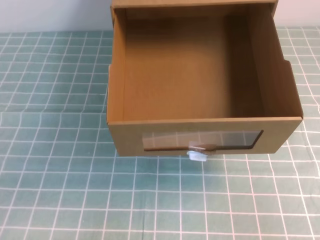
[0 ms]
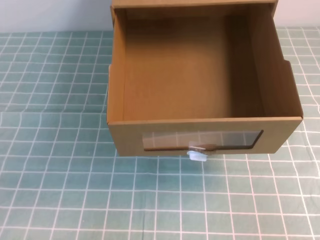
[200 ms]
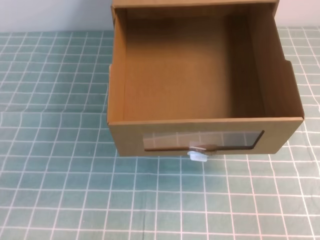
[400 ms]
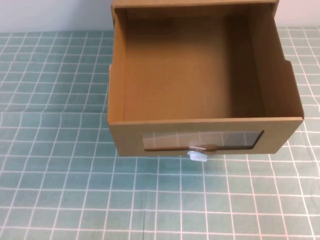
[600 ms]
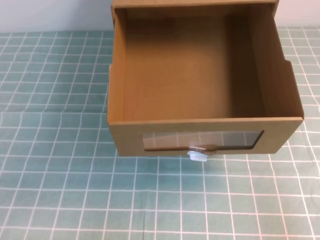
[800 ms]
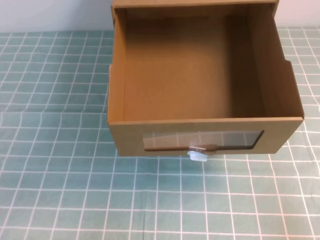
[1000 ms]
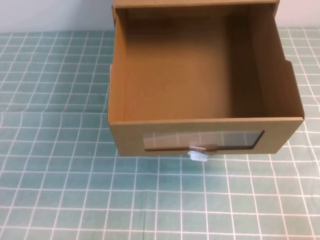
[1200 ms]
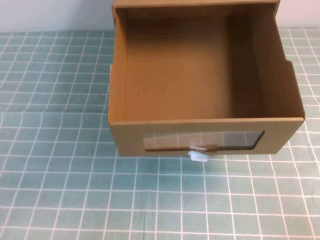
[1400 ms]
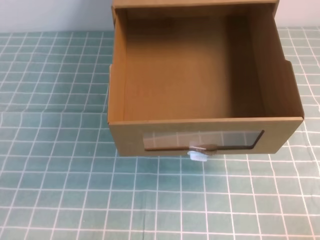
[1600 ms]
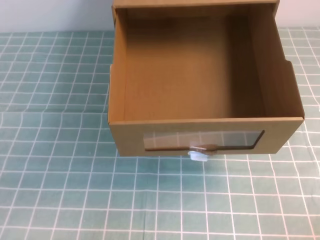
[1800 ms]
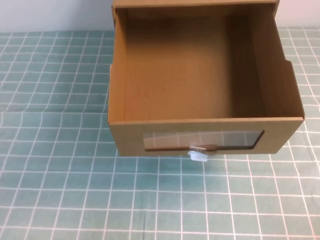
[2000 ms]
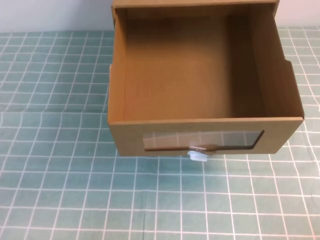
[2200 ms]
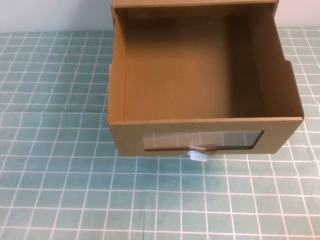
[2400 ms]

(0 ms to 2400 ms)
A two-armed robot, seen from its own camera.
Task of the whole recording: open the shoebox on the cyan tablecloth.
0 ms - 1200 ms: The right gripper moves downward, some 10 cm.

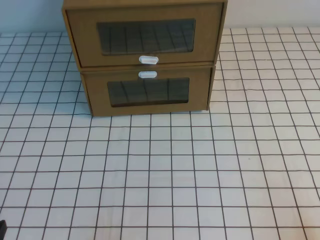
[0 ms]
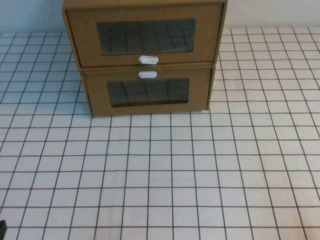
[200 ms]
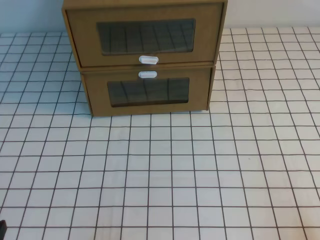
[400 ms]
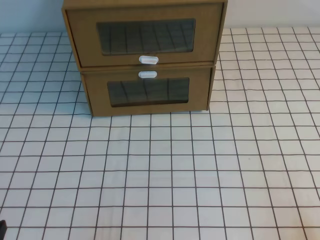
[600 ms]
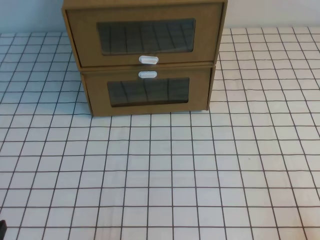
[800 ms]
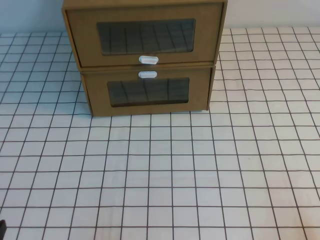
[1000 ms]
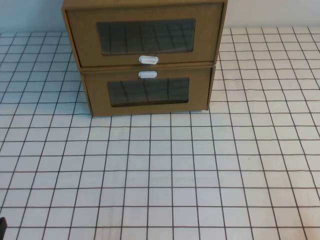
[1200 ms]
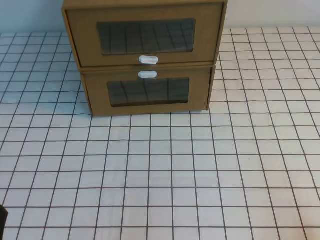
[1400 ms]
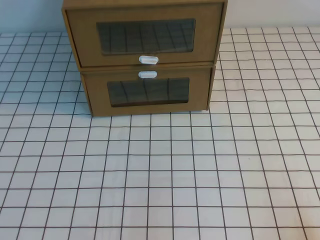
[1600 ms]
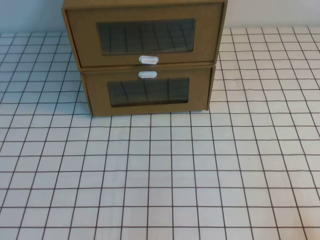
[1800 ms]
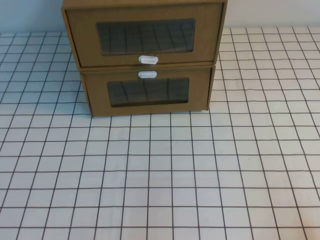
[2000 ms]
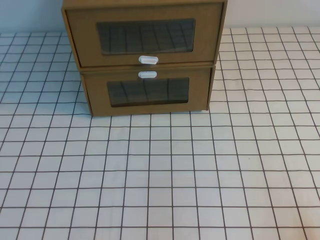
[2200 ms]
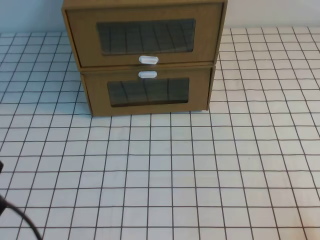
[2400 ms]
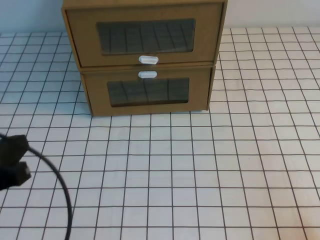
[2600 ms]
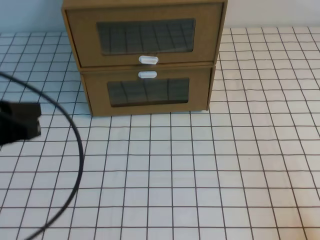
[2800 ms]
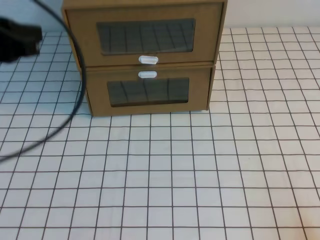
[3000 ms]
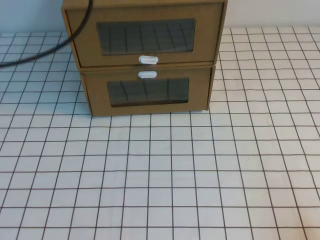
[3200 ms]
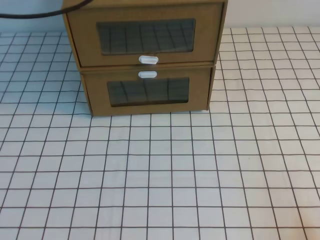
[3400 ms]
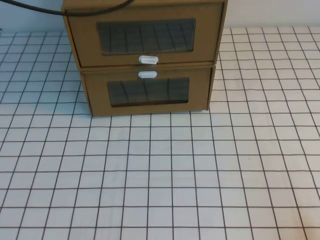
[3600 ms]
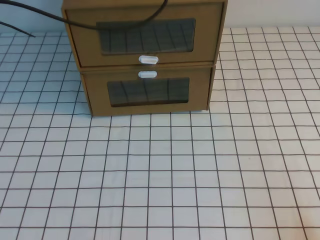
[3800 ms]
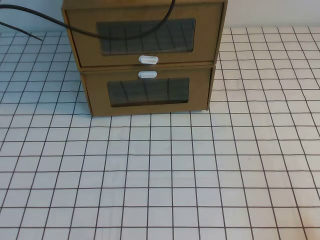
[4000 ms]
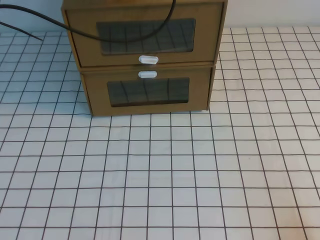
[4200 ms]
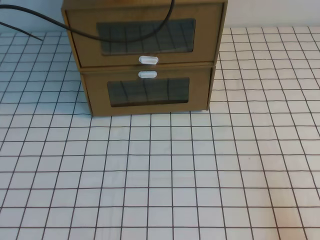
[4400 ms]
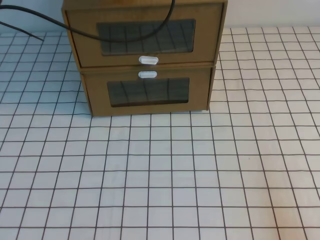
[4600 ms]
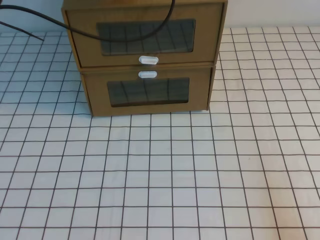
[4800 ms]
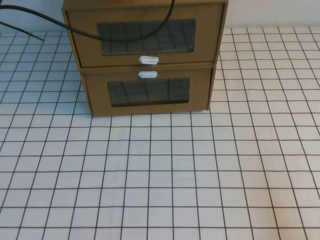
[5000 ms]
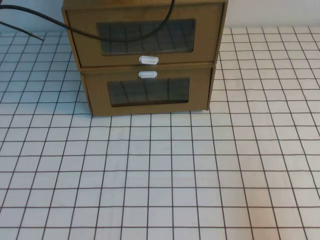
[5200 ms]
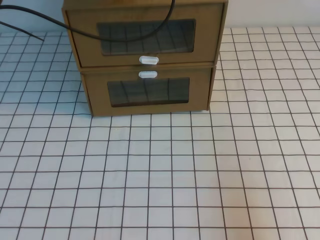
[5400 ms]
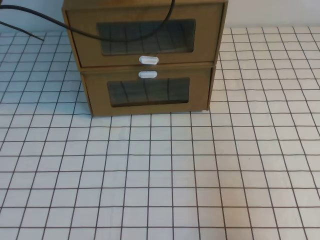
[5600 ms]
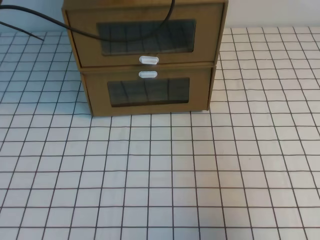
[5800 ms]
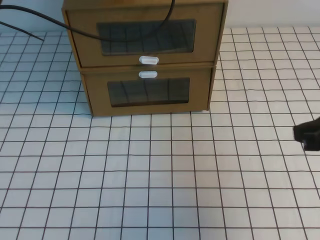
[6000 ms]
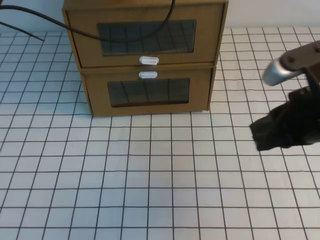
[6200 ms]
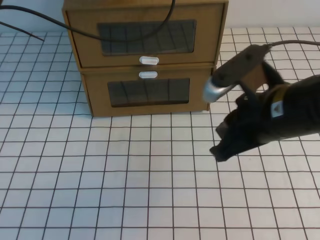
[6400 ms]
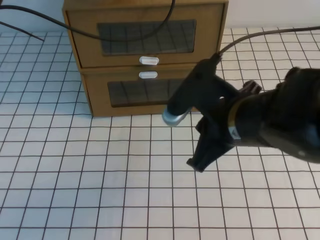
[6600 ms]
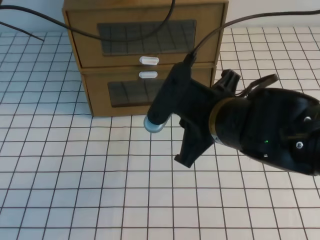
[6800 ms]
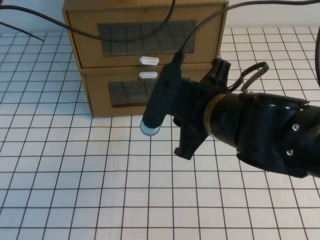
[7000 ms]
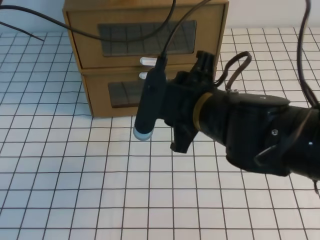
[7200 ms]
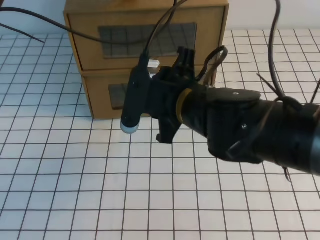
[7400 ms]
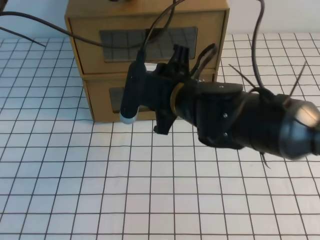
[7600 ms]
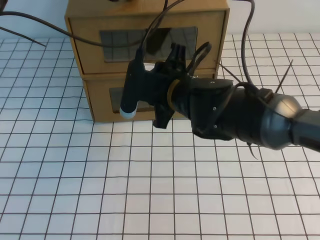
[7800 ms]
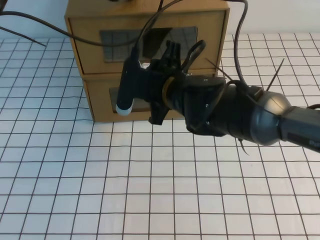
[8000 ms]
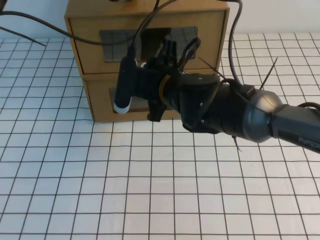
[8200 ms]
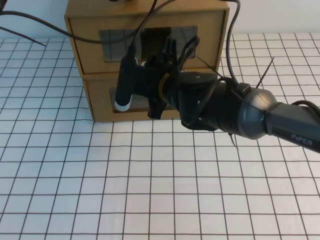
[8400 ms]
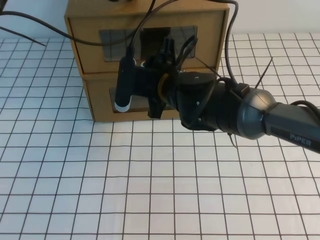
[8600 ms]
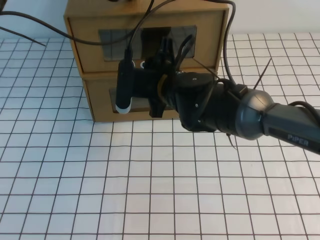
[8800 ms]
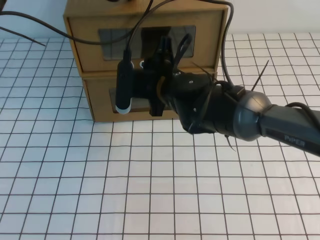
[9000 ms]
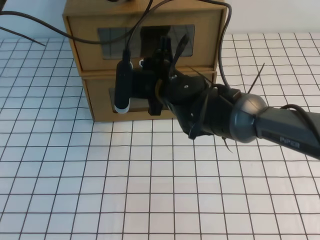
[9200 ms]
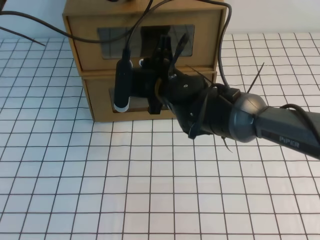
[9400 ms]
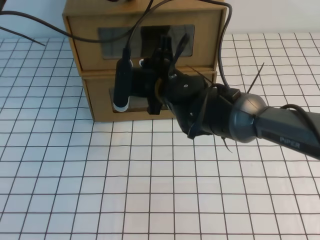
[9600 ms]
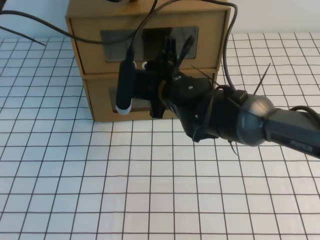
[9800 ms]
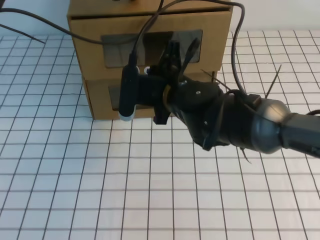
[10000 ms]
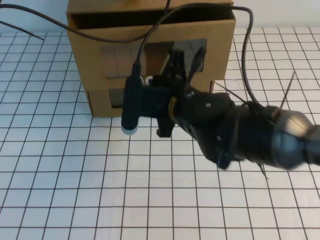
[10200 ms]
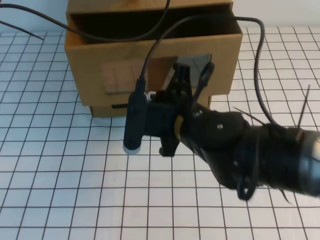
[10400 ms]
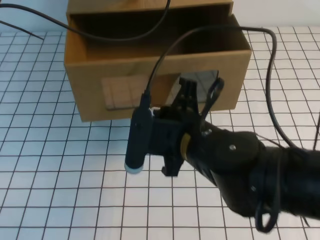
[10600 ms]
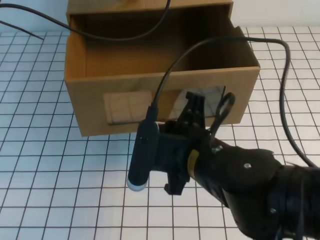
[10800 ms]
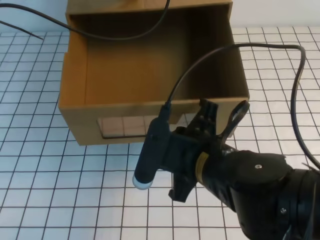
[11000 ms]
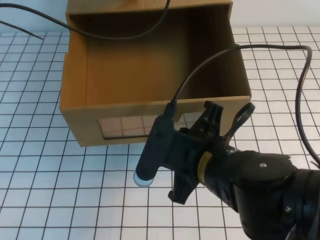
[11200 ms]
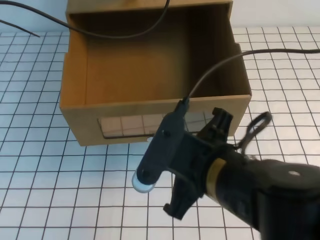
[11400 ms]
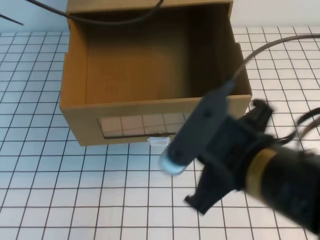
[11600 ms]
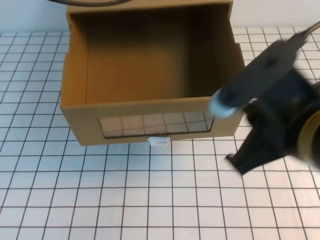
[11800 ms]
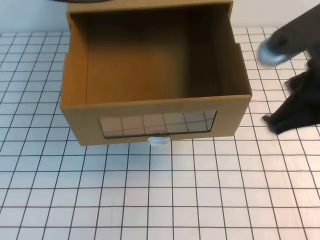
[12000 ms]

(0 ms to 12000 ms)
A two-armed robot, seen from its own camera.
Task of the whole recording: open the shoebox on the white tablecloth.
1600 ms - 3000 ms: The left gripper is displaced upward and forward by about 25 cm.
3000 ms - 4400 ms: The left gripper is displaced forward and to the right by about 25 cm.
4400 ms - 6000 ms: The right gripper goes about 20 cm forward, upward and to the left.
6000 ms - 7600 ms: The right gripper heads to the left and forward, covering about 25 cm, and opens.
7600 ms - 9000 ms: The right gripper heads forward, covering roughly 5 cm, and closes its fingers.
9000 ms - 10400 ms: The right gripper shifts some 10 cm backward, and closes up.
10400 ms - 12000 ms: The left gripper shifts some 15 cm upward and backward. Meanwhile the right gripper shifts about 20 cm to the right, upward and backward.

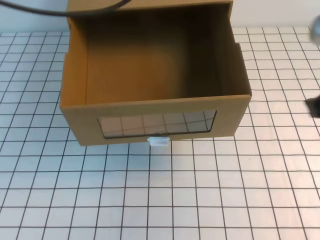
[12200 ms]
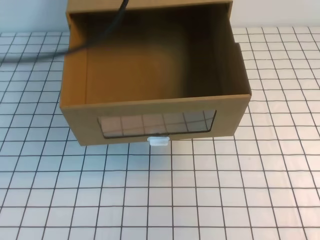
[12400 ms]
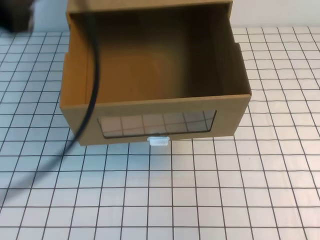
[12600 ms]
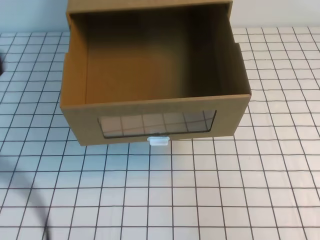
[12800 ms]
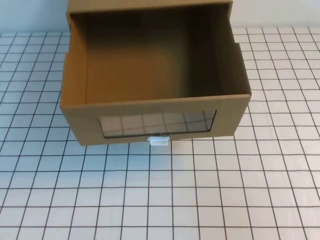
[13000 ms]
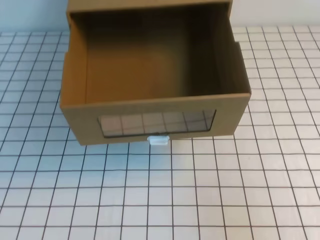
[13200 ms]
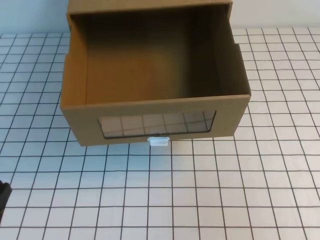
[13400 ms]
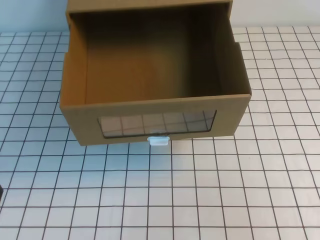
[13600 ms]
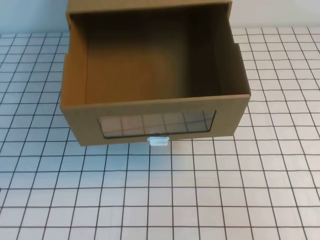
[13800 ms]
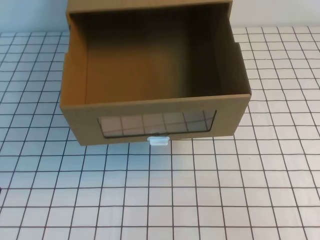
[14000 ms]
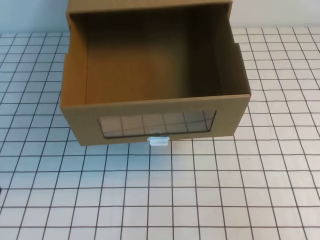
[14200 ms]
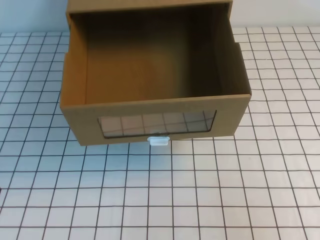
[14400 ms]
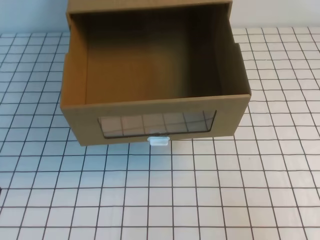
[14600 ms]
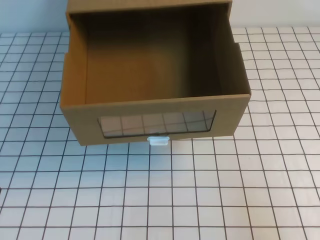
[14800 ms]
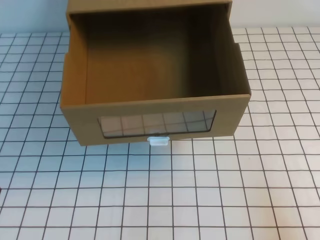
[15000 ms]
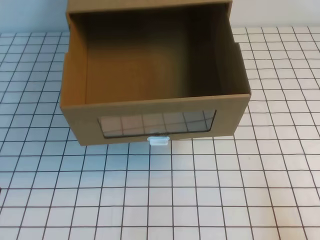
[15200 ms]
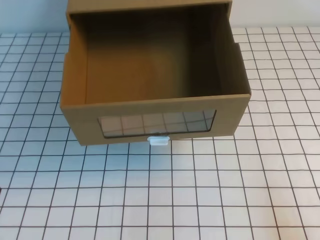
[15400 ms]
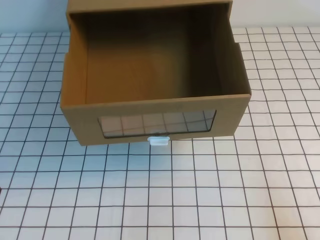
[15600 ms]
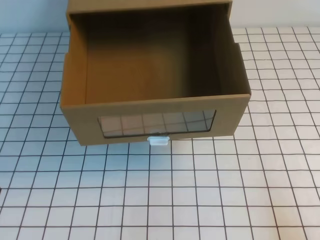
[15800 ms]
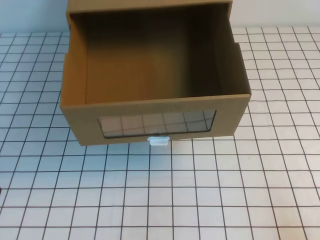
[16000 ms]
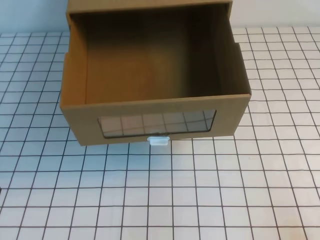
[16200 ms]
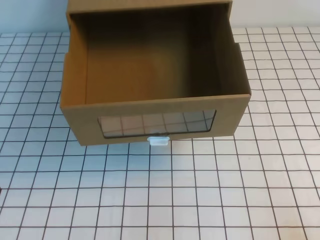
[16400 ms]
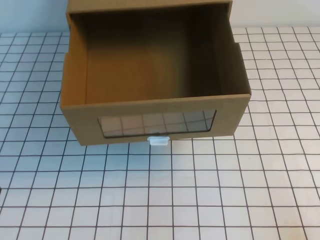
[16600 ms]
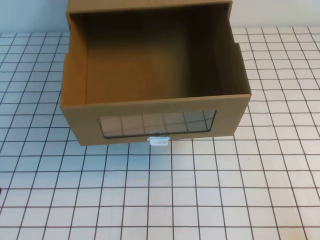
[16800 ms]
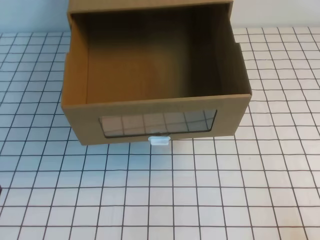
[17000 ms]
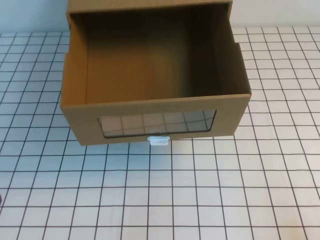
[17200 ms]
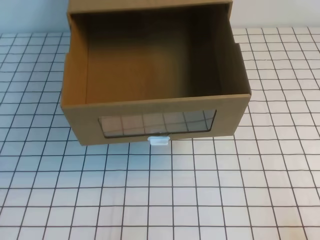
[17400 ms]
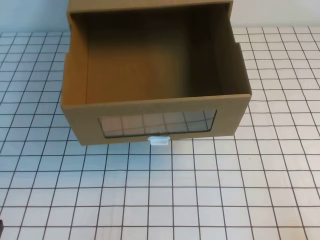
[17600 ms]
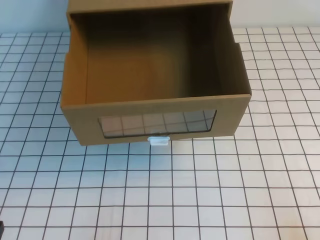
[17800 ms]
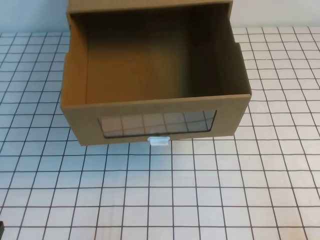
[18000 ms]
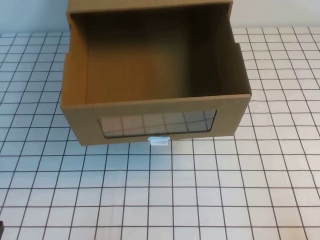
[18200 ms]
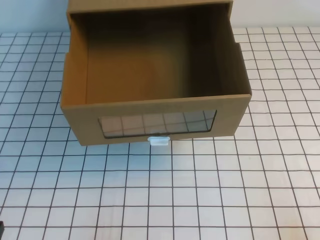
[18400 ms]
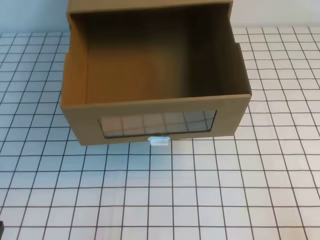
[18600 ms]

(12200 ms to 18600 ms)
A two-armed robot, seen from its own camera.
Task of the whole recording: open the shoebox on the white tablecloth.
Step, 12200 ms - 18600 ms: Open the shoe box.
12200 ms - 13800 ms: The left gripper moves downward and backward, approximately 40 cm; the right gripper is displaced backward, downward and to the right by about 15 cm.

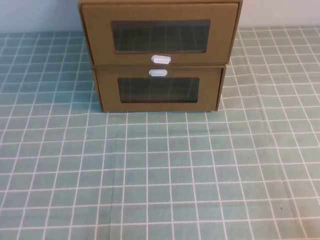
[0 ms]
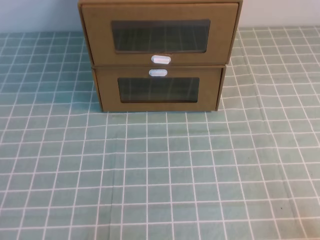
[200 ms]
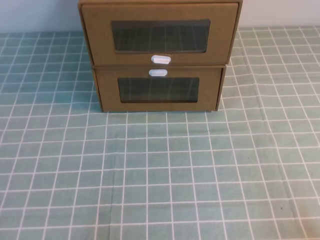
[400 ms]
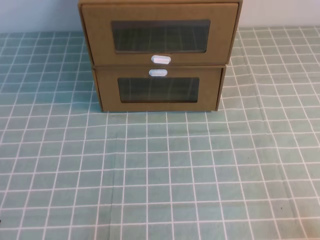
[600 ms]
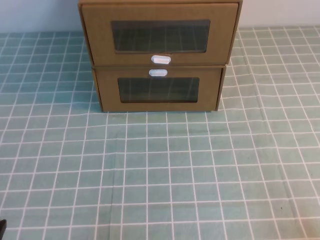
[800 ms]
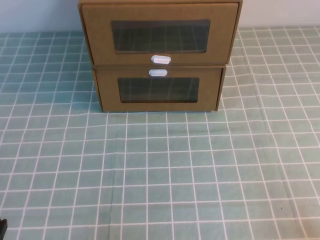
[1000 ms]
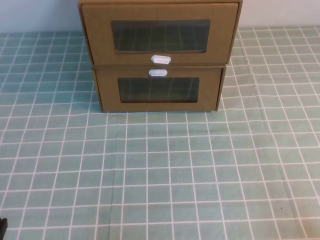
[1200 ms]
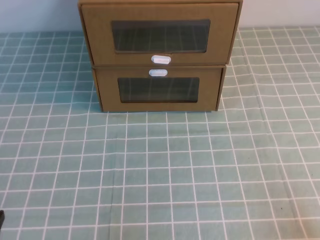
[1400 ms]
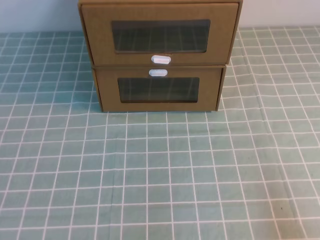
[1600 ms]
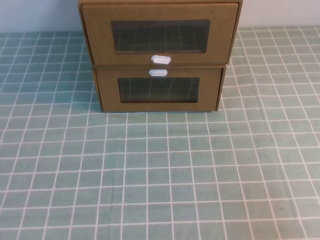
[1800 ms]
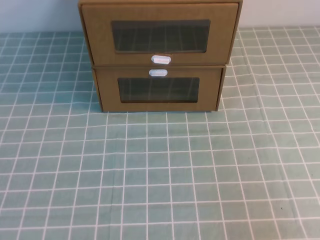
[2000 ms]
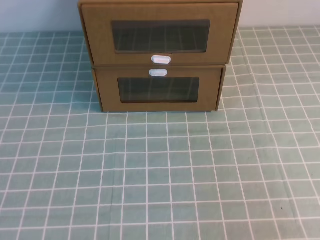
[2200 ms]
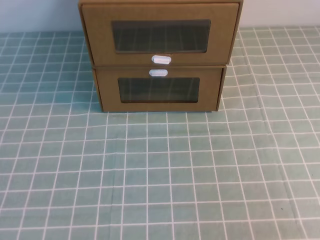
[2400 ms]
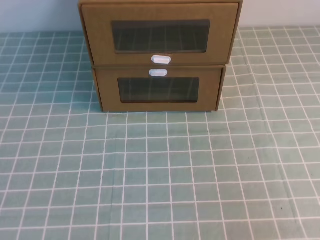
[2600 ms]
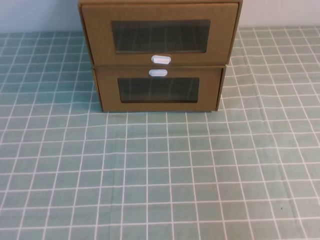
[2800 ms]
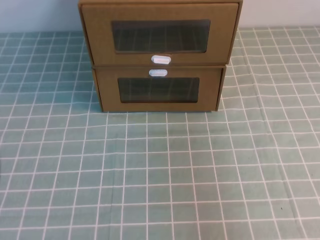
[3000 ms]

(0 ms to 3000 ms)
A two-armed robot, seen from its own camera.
Task of the whole recording: open the shoebox on the cyan tablecloth.
1600 ms - 3000 ms: Both grippers travel together upward, roughly 20 cm.
